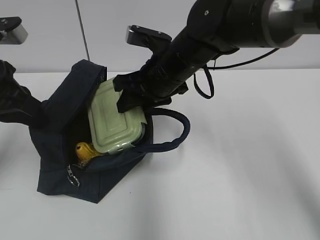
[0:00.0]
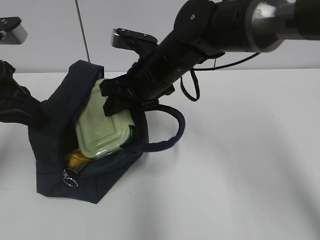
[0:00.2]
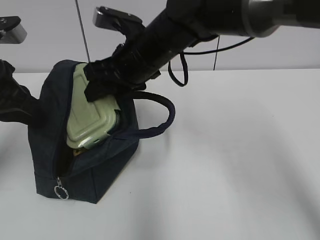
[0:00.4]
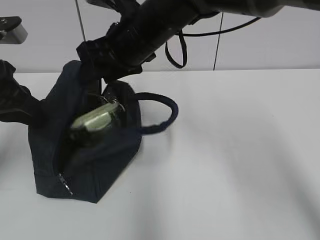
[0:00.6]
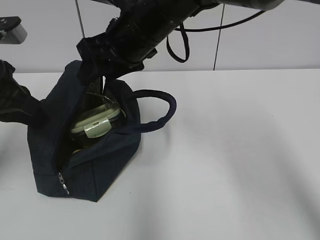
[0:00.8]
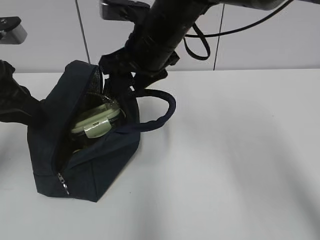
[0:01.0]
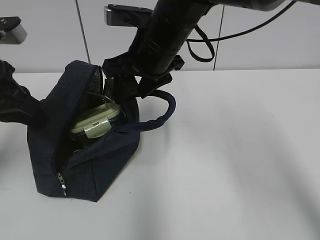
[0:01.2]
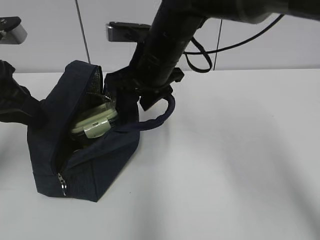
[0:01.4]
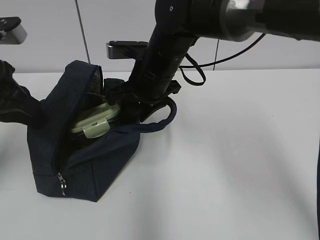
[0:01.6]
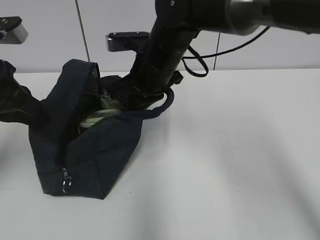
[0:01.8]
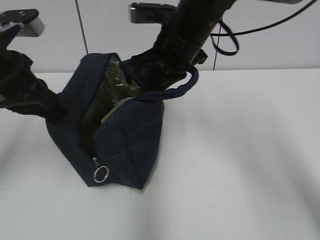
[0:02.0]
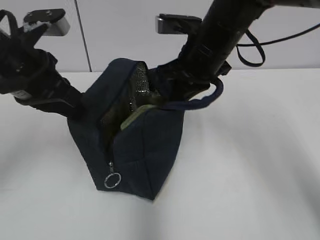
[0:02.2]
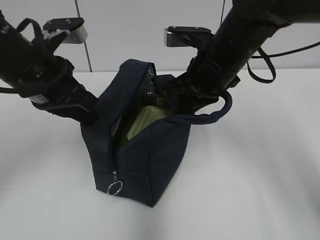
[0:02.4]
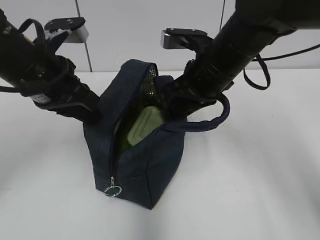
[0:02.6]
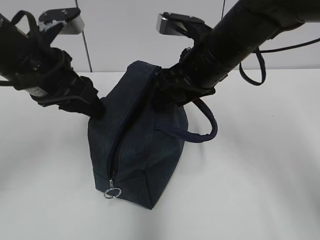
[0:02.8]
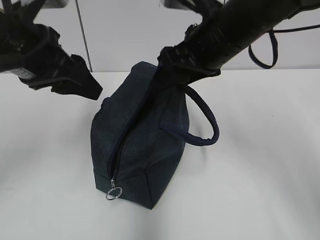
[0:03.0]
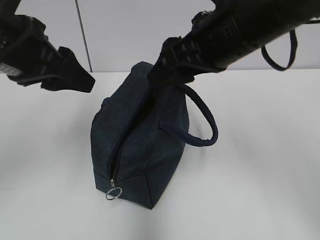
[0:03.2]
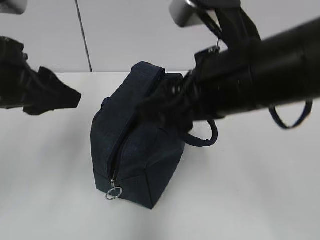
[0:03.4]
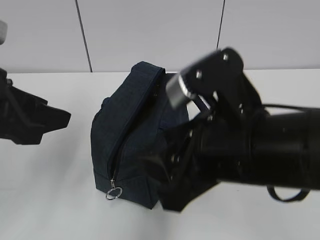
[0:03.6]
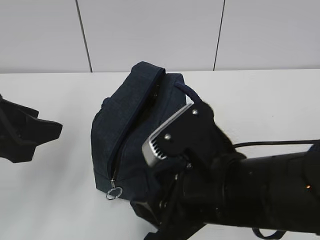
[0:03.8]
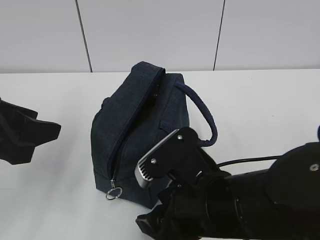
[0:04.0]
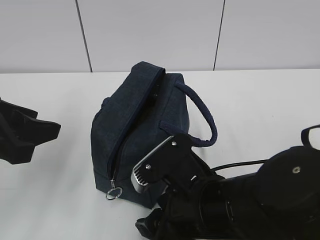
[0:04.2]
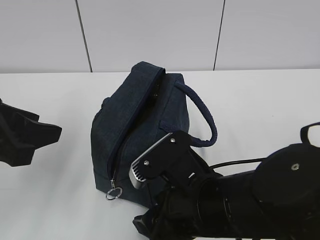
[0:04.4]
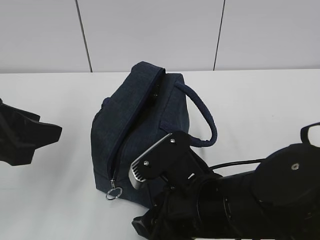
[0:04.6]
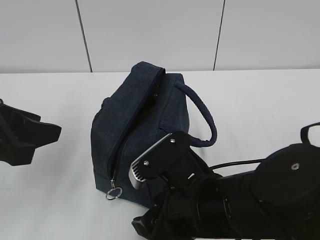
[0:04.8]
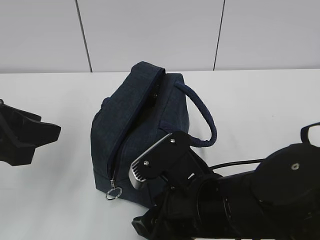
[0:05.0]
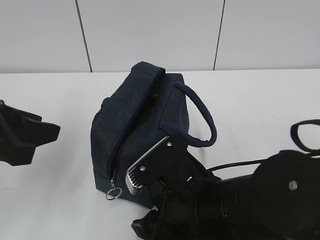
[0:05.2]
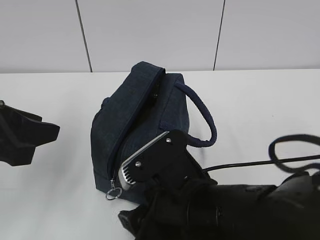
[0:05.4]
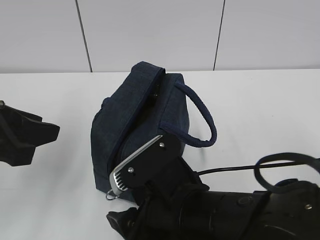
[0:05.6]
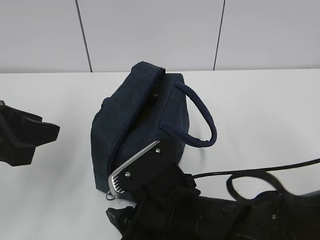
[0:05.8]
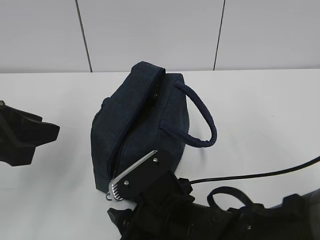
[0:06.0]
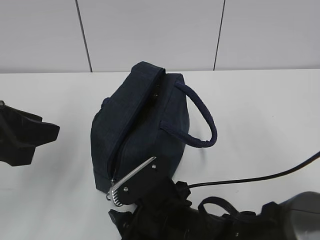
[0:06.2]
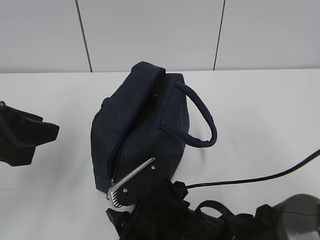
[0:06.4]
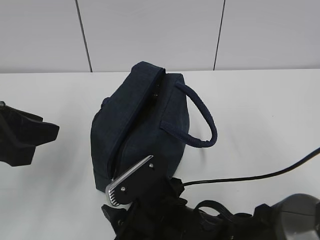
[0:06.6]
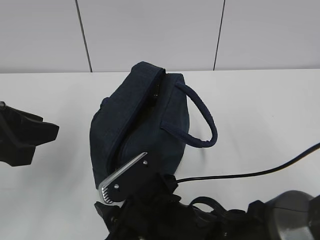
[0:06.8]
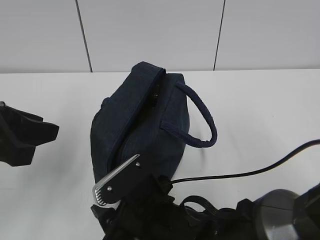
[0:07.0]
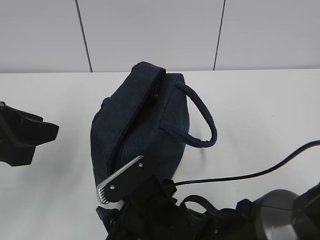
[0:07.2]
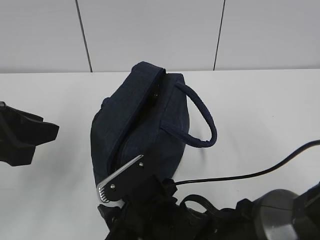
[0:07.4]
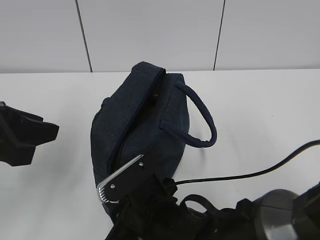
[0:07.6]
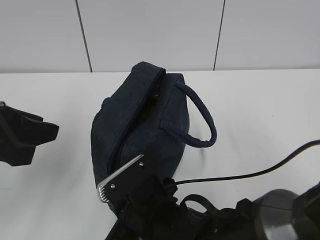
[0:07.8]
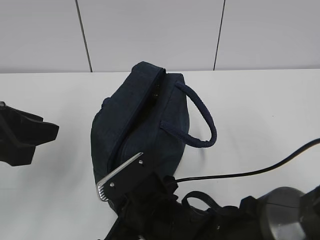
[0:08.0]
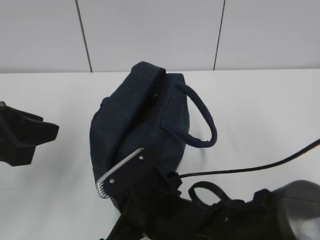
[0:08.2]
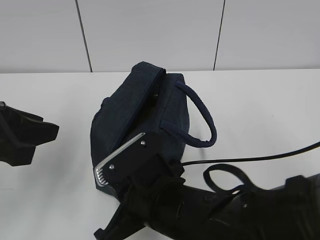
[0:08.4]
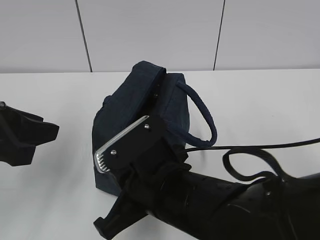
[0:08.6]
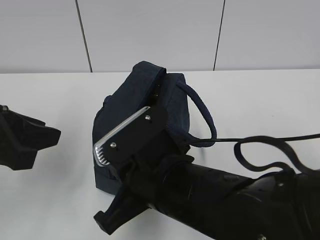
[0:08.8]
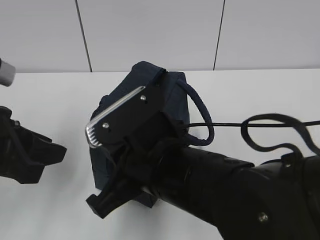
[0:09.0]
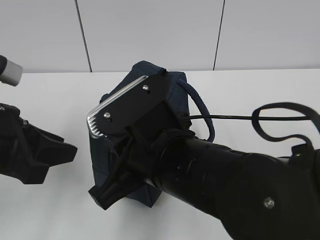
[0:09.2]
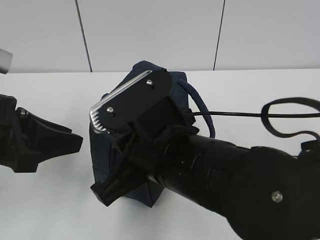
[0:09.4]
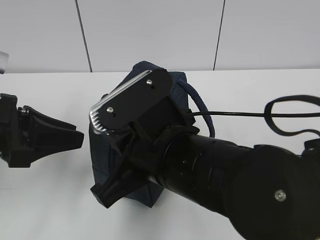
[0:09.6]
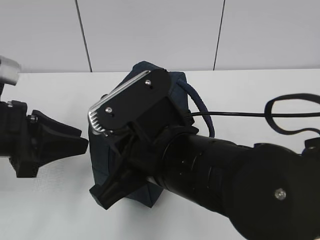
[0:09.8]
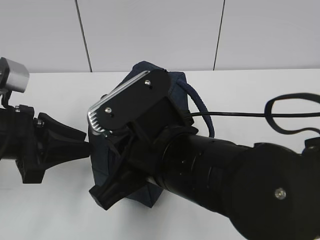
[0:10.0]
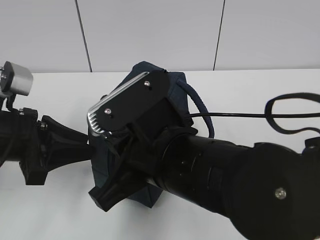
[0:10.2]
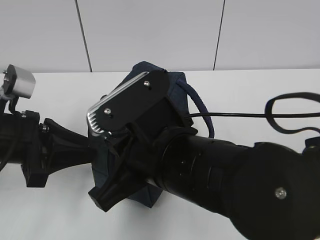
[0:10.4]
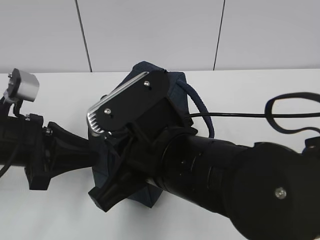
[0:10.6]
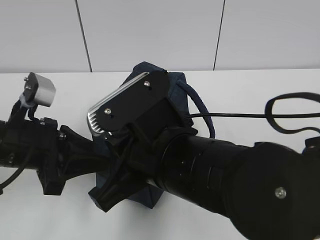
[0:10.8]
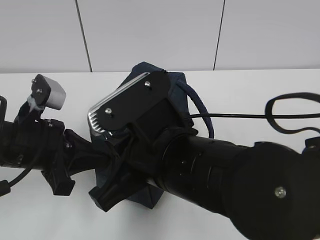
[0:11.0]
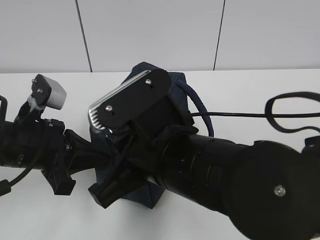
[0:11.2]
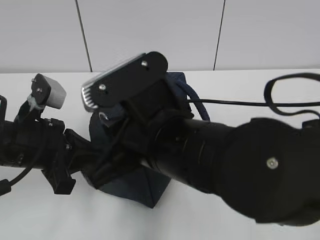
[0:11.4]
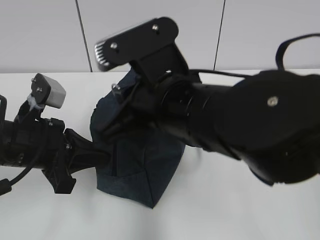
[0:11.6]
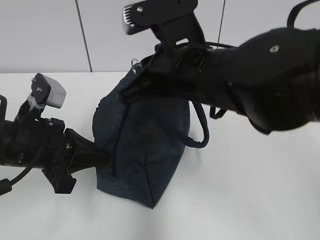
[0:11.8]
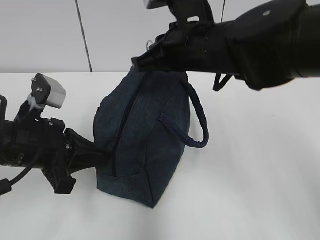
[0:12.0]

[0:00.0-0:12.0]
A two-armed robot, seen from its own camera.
Step, 0:01.0 to 0:01.8: Grab the lunch bag with your right hand.
Step, 0:02.0 to 0:02.8: Move the lunch bag to the right.
0:01.6 to 0:03.0: The left gripper moves to the right, some 5 cm, and opens up; the right gripper travels to the right, upward and backward by about 15 cm, and closes and opens again.
0:03.0 to 0:04.4: The right gripper heads backward and downward, covering approximately 20 cm. Meanwhile the left gripper is displaced backward and downward by some 10 cm.
0:04.4 to 0:06.0: The right gripper goes some 5 cm downward.
0:06.0 to 0:07.6: The grippers make only small movements.
0:07.6 to 0:09.0: The right gripper moves upward, some 10 cm, and closes.
0:09.0 to 0:10.4: The left gripper shifts by about 5 cm.
0:10.4 to 0:12.0: The left gripper closes up. Meanwhile the right gripper travels forward by approximately 15 cm.

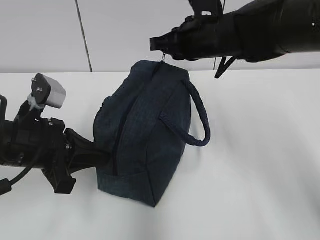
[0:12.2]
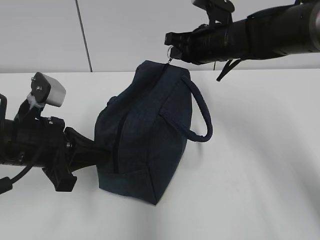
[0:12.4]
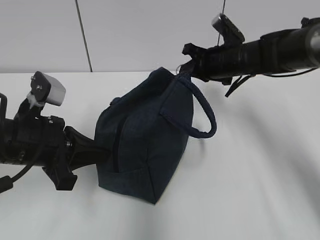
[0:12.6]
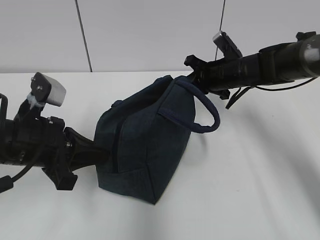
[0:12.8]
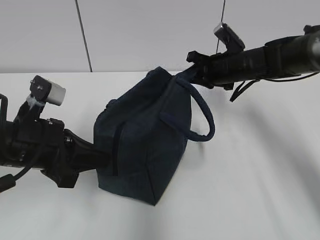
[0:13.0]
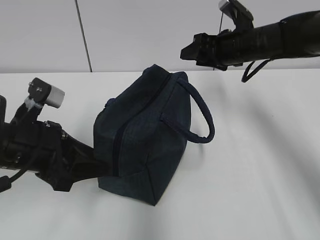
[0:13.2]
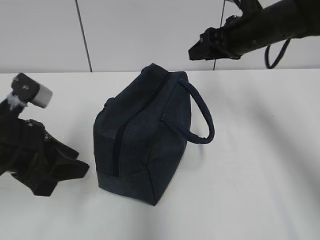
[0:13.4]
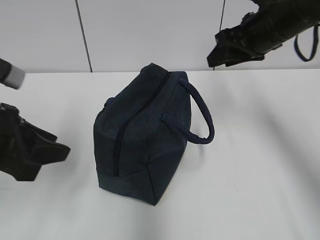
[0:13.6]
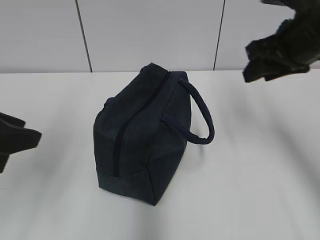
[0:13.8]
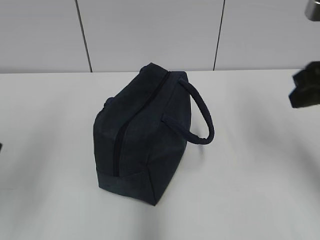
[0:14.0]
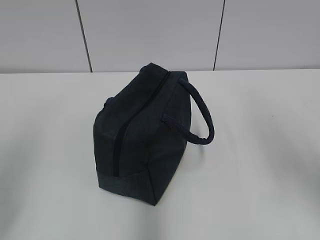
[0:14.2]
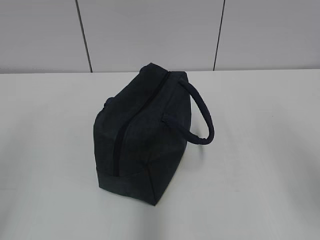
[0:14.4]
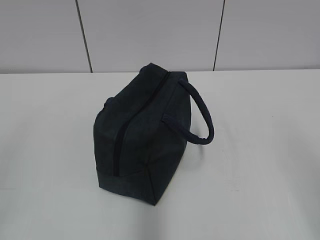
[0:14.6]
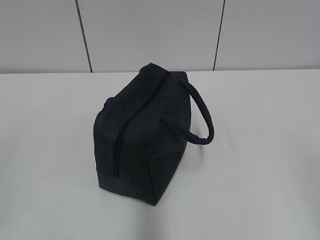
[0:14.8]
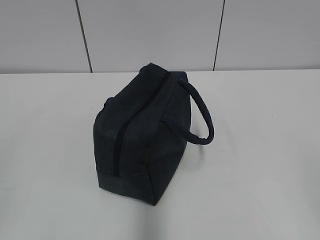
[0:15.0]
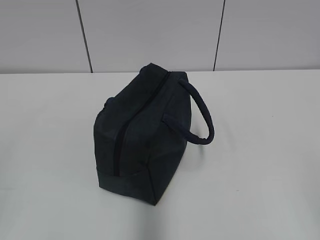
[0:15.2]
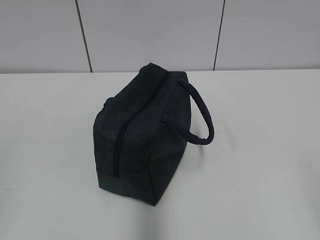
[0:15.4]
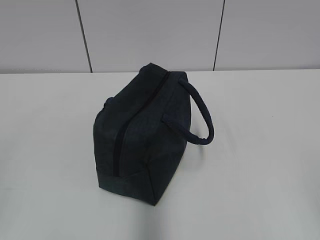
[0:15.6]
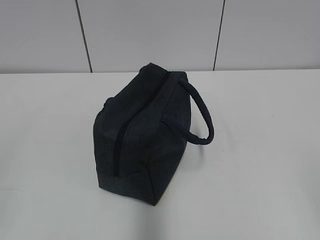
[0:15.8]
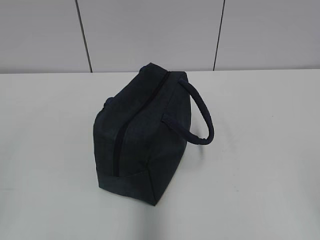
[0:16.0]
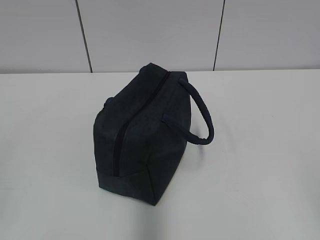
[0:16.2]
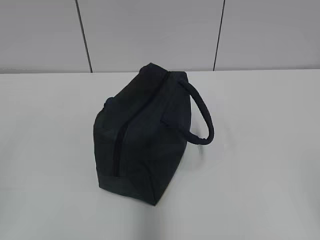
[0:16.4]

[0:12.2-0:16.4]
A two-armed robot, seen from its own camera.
0:12.2 to 0:13.6: The right gripper shifts approximately 10 cm to the right, goes downward and returns, approximately 10 cm each way, and opens; the left gripper shifts some 5 cm upward, and opens its fingers.
0:13.6 to 0:15.0: The right gripper travels backward by approximately 40 cm. Meanwhile the left gripper is displaced backward and to the left by some 20 cm.
